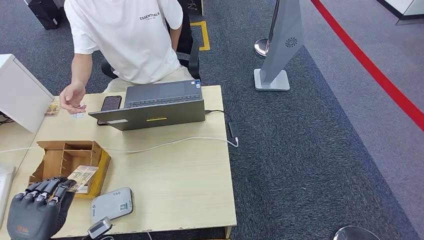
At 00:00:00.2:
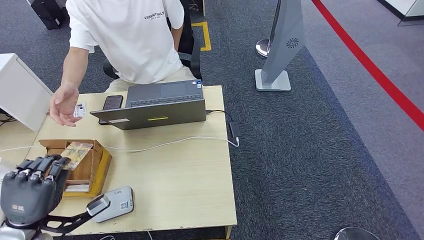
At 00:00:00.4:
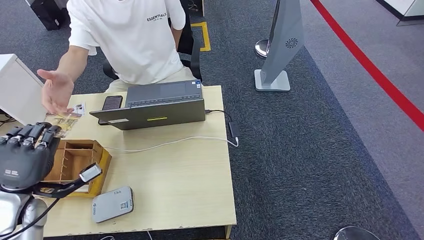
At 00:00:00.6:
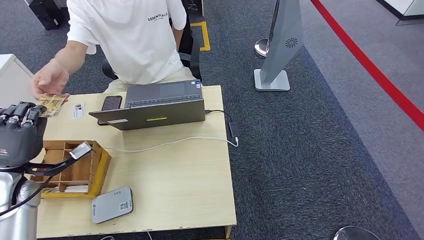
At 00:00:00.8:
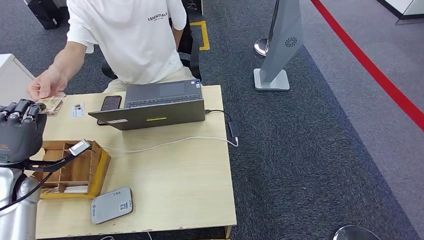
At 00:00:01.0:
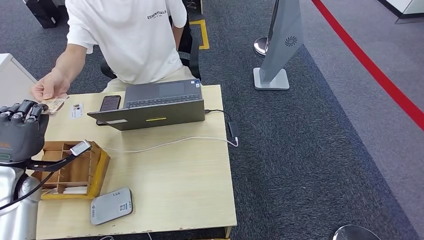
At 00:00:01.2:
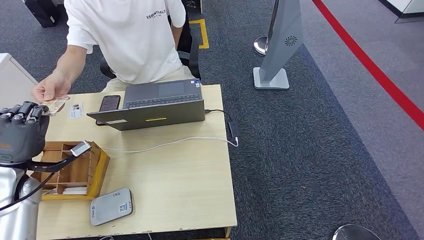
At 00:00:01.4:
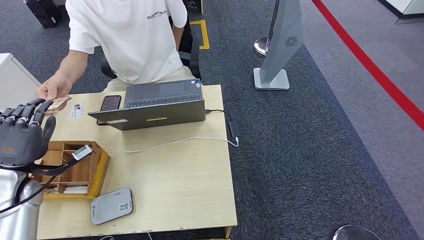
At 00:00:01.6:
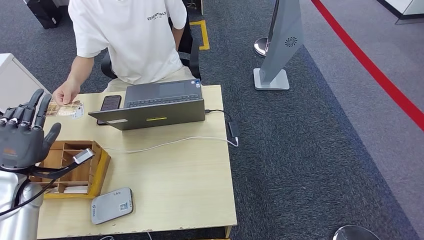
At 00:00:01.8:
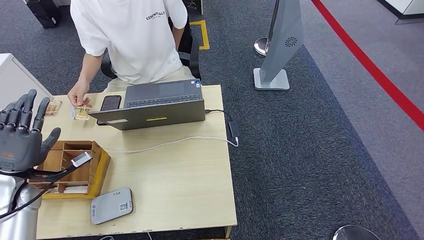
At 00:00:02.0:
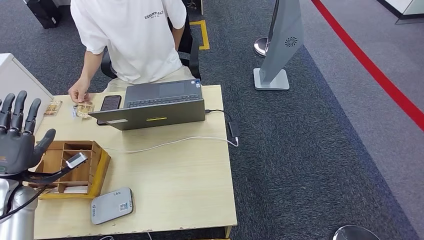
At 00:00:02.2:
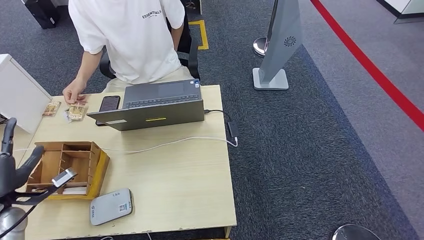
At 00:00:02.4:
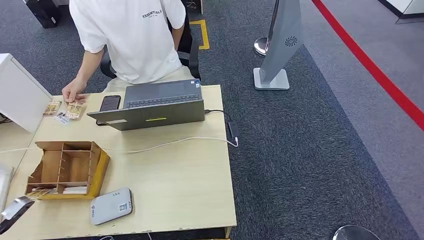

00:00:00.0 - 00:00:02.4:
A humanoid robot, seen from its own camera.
Step, 00:00:00.2 - 00:00:02.2: Hand the room key to the person.
00:00:00.0 - 00:00:01.2: The left hand travels forward and upward by about 15 cm.
00:00:01.2 - 00:00:02.4: The left hand travels backward, to the left and downward by some 20 cm.
